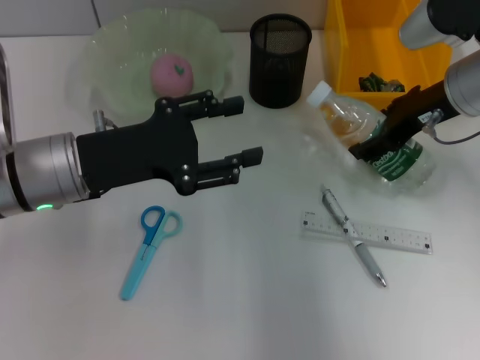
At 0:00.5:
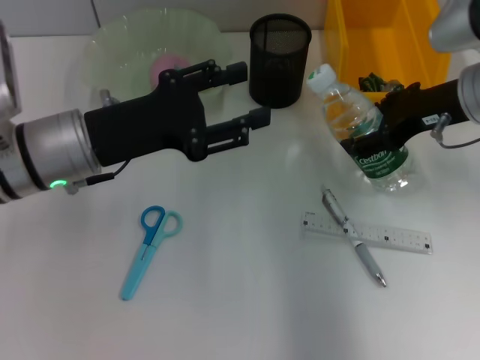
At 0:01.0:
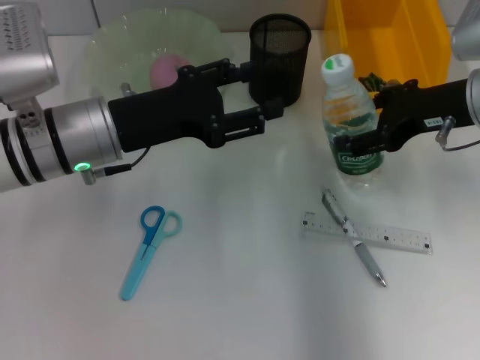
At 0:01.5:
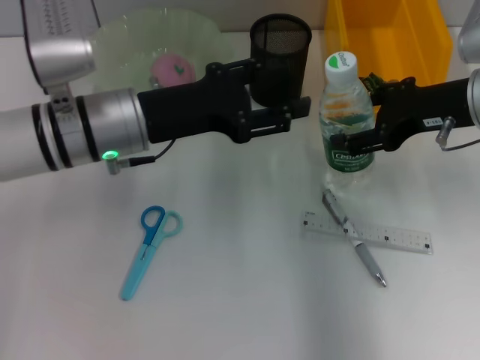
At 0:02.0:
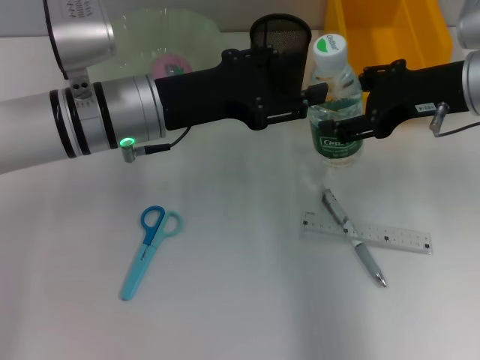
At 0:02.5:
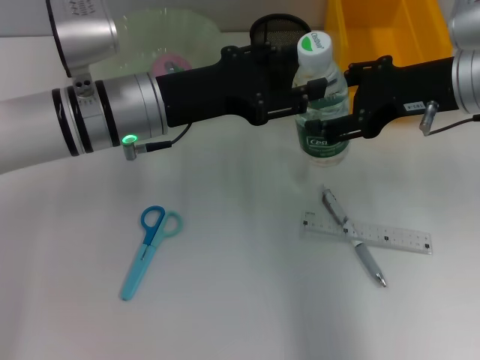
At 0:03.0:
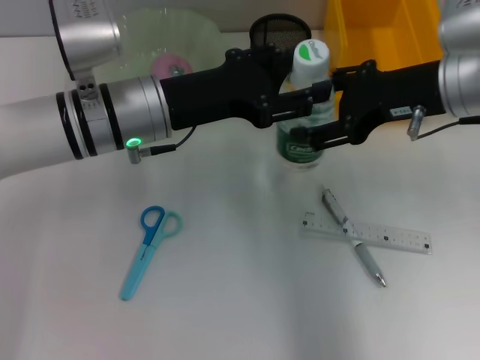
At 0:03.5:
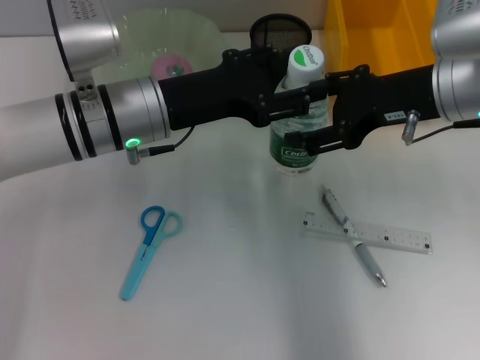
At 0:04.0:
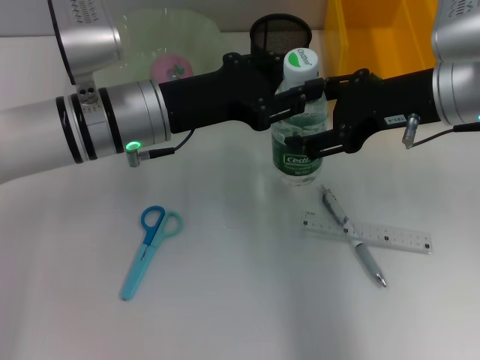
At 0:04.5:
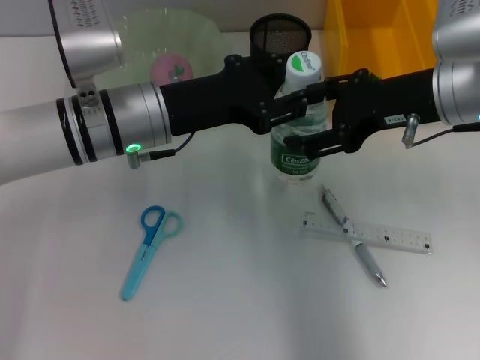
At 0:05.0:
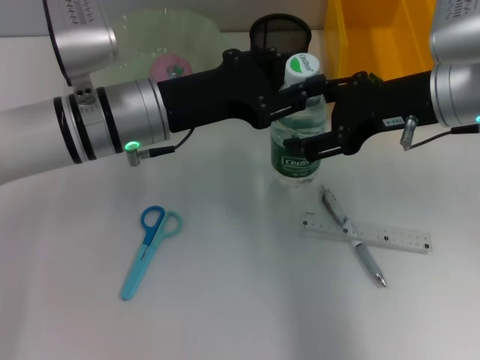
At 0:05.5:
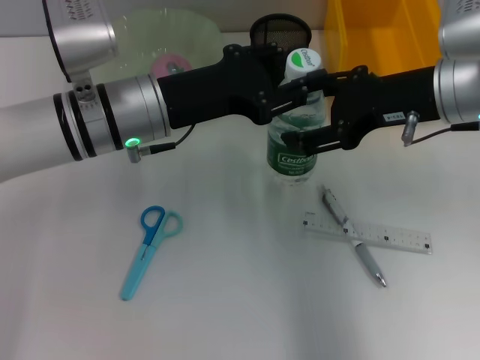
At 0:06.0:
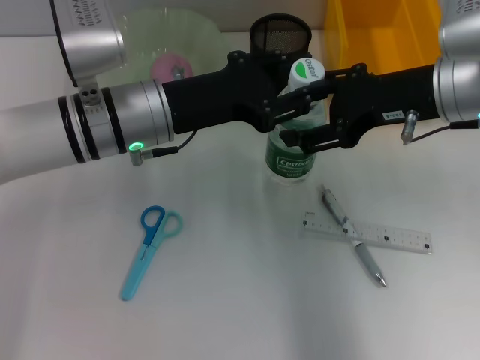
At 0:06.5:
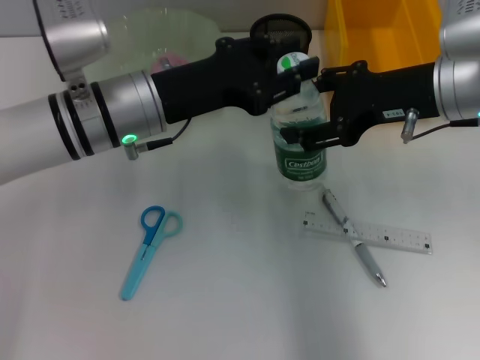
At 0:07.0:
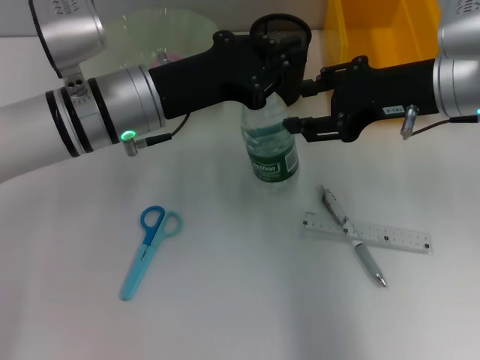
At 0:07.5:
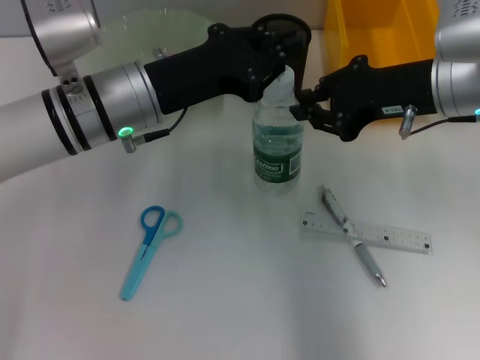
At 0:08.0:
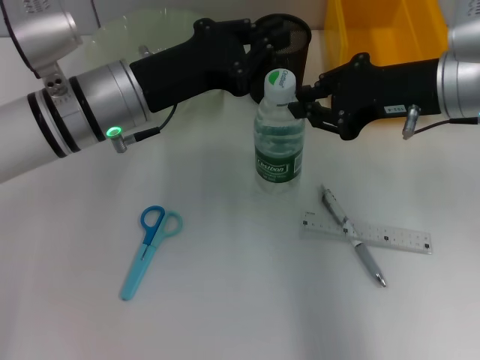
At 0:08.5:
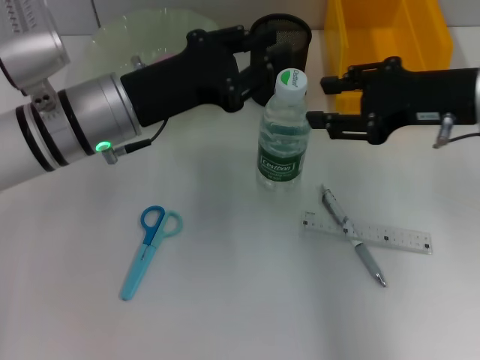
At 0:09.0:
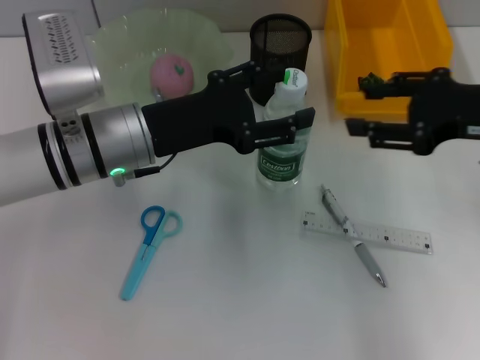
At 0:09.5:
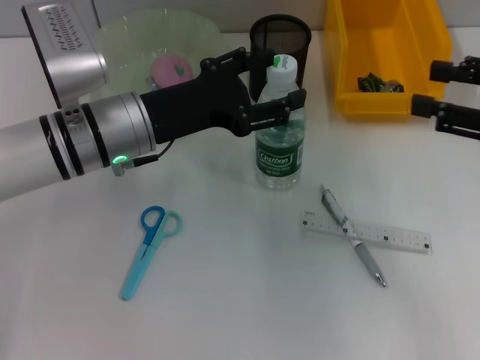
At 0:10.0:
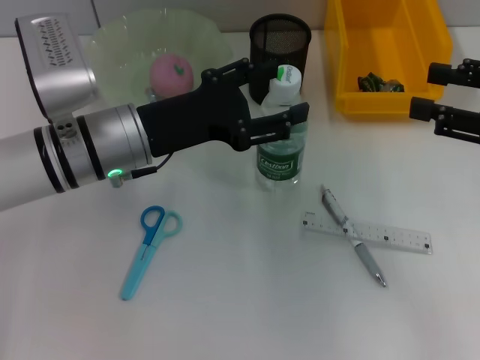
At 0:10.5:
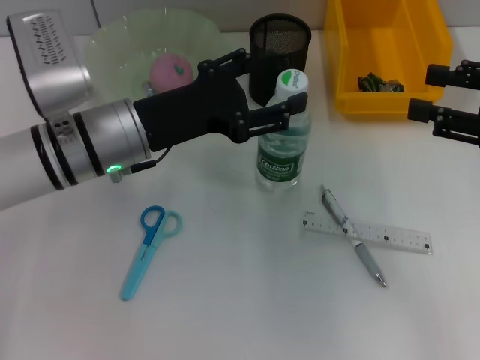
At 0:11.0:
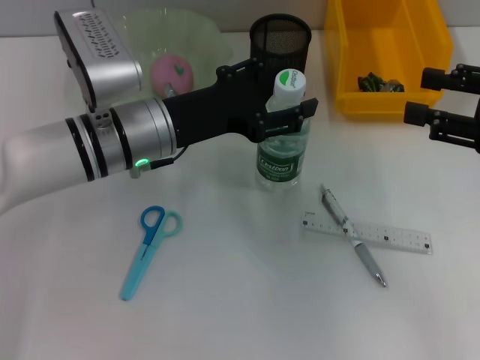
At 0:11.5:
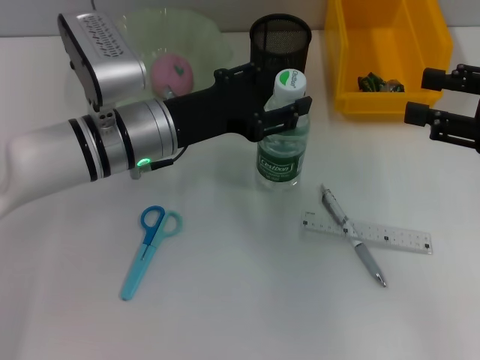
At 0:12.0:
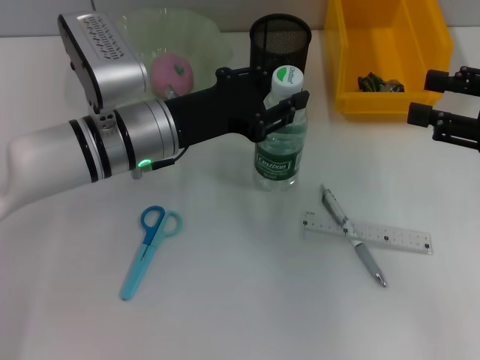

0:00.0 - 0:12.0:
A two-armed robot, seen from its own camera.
Step, 0:00.0 - 0:11.5: Grab the water bottle with the left hand.
0:00.0 - 0:02.0: The left gripper moves to the right and forward, roughly 10 cm.
0:02.0 - 0:04.0: The grippers stay close to where they were, moving slightly.
0:04.0 - 0:06.0: Both grippers stay put.
0:06.0 - 0:08.0: The left gripper closes its fingers; the right gripper closes its fingers.
0:08.0 - 0:10.0: The left gripper opens its fingers. The right gripper goes about 15 cm to the right and backward, and opens its fingers.
0:10.0 - 0:12.0: The left gripper closes up.

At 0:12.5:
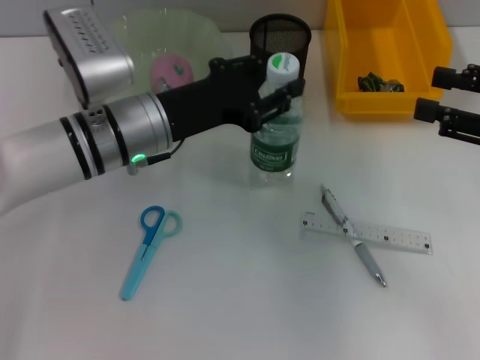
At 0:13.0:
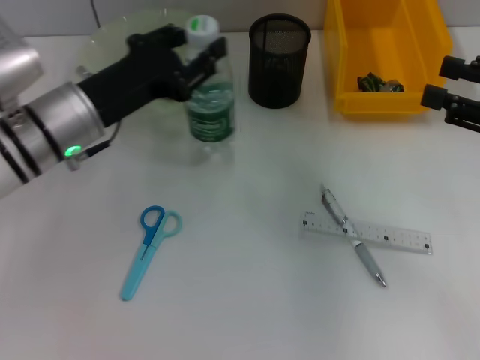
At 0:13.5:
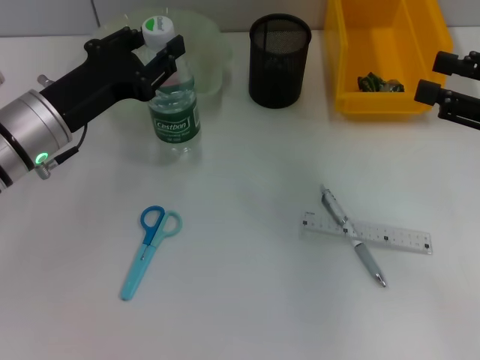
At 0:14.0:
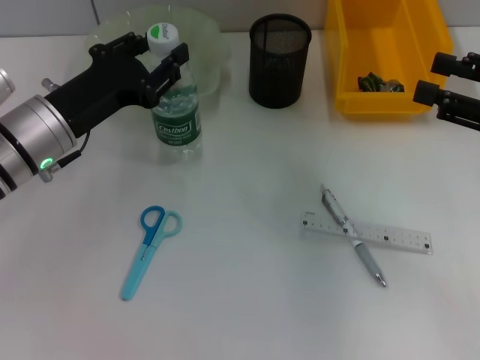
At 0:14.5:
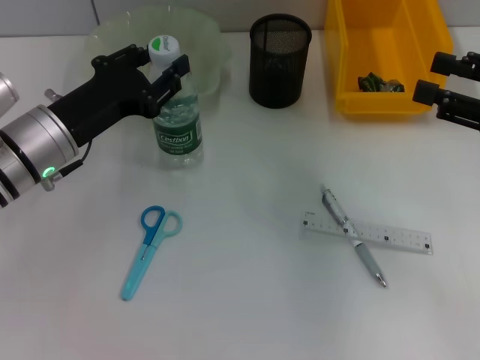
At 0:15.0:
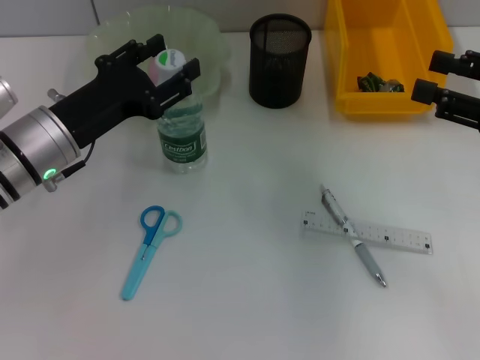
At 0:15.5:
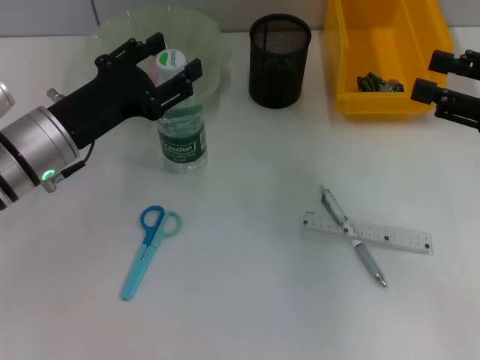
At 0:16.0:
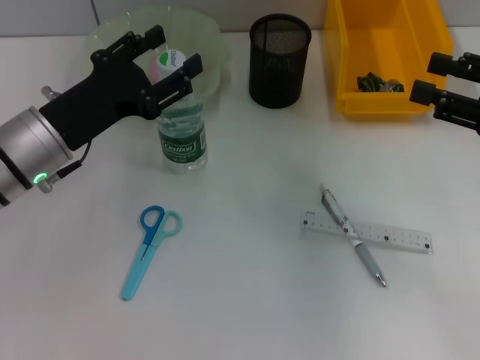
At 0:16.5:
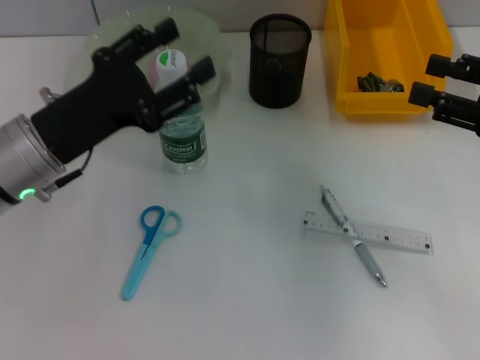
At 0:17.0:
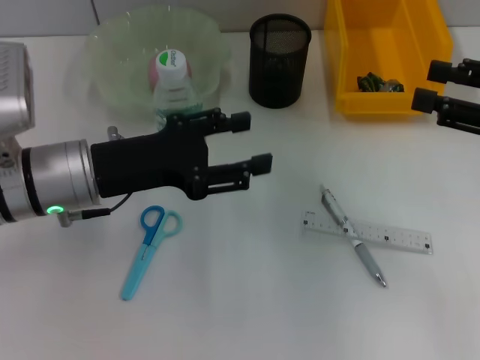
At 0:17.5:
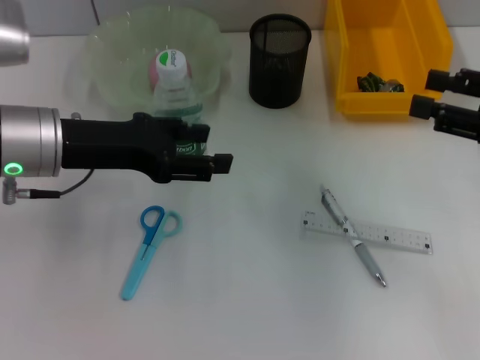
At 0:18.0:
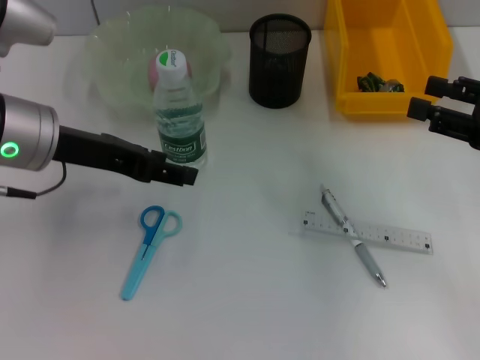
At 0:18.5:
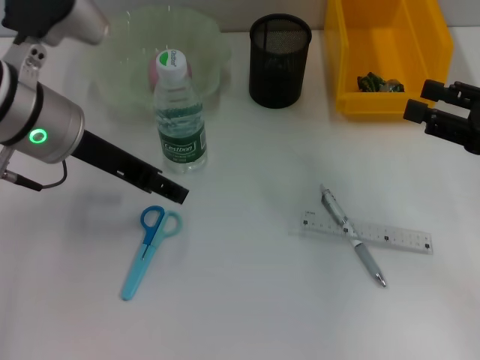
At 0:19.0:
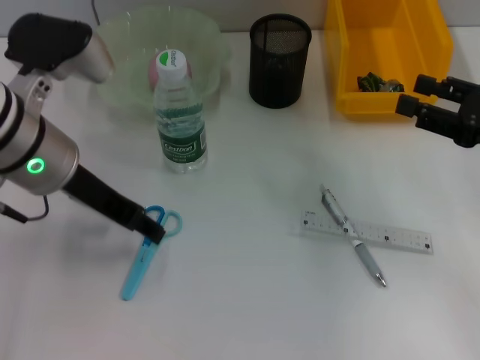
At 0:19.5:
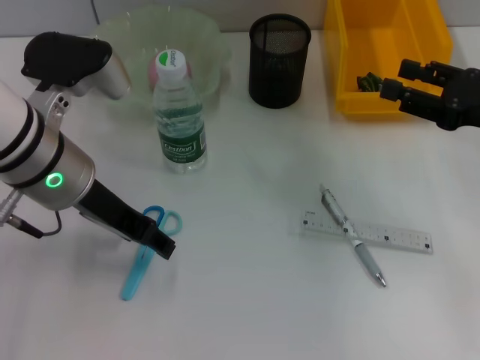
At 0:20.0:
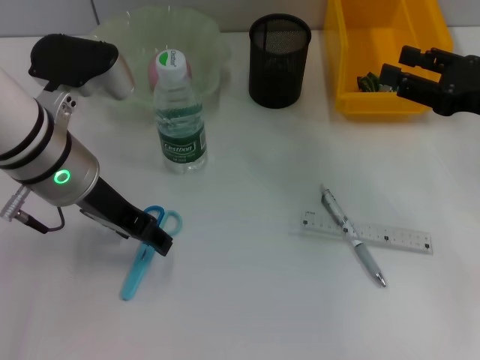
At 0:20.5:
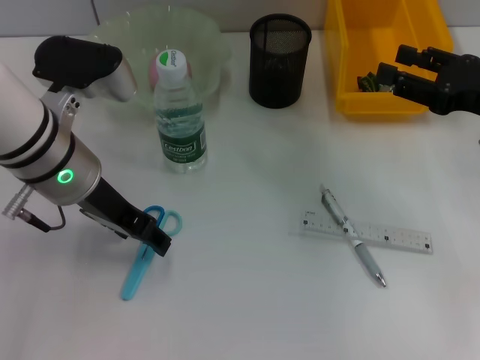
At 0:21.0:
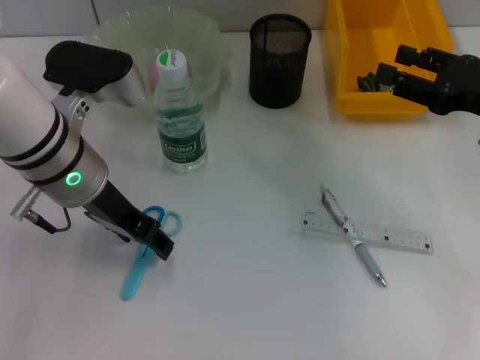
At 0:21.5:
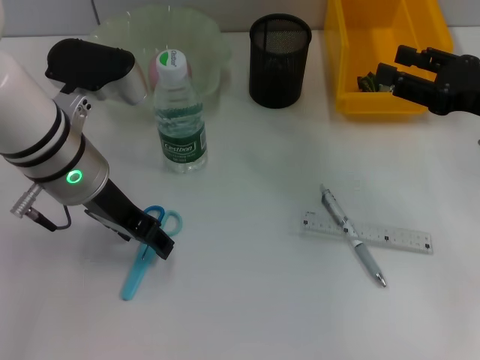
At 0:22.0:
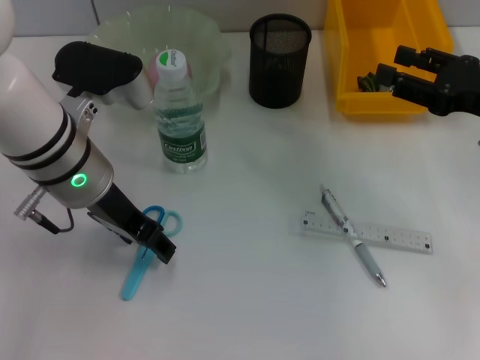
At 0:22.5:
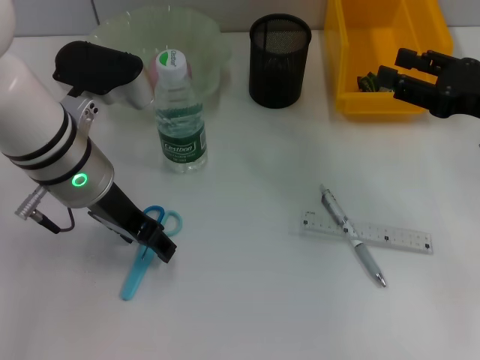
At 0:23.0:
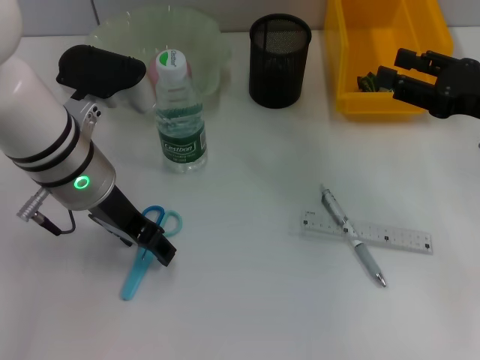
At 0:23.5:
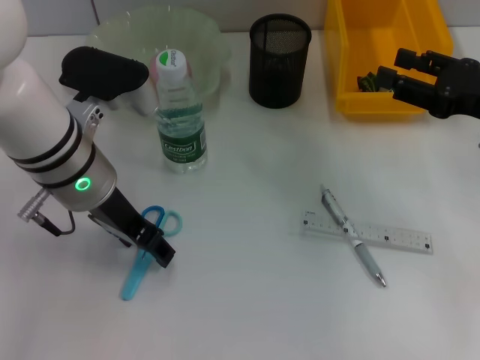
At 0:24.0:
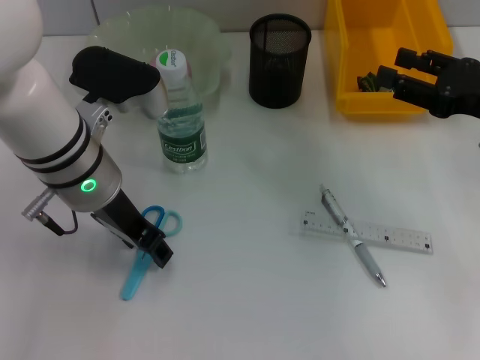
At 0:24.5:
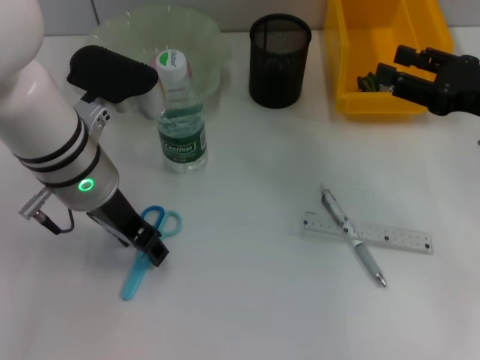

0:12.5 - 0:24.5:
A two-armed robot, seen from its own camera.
Step, 0:12.5 - 0:15.5: Place the water bottle on the table with the left hand.
0:12.5 - 0:14.5: The left gripper heads to the left, covering approximately 10 cm.
0:14.5 - 0:16.5: The left gripper opens up.
0:16.5 - 0:18.5: The left gripper goes approximately 5 cm upward.
0:18.5 - 0:20.5: There are only small adjustments of the grippers.
0:20.5 - 0:22.5: Neither gripper changes place.
0:22.5 - 0:24.5: There are only small adjustments of the grippers.

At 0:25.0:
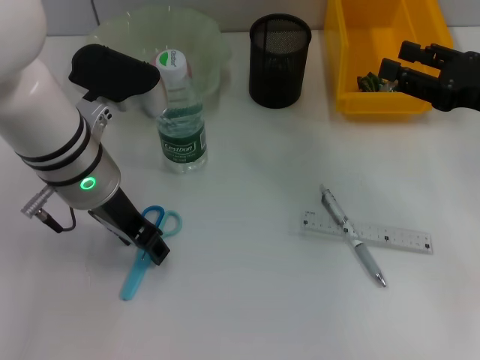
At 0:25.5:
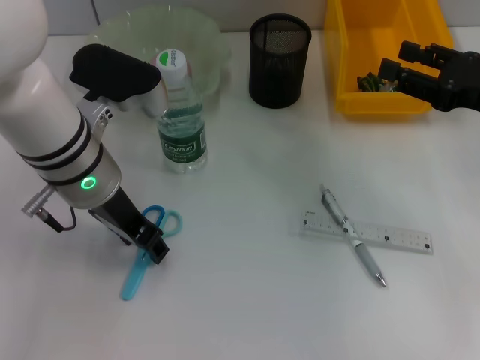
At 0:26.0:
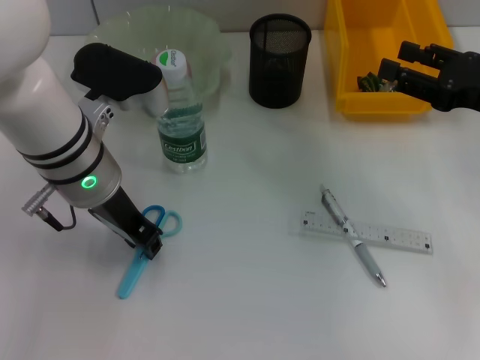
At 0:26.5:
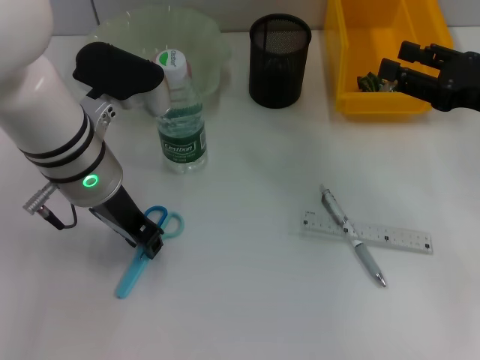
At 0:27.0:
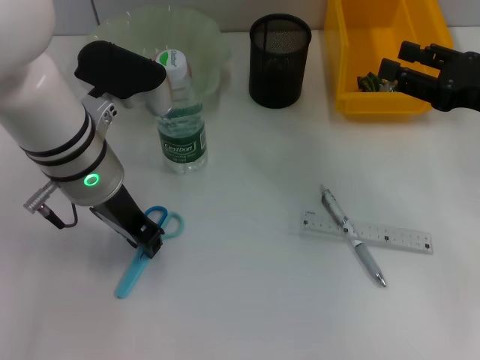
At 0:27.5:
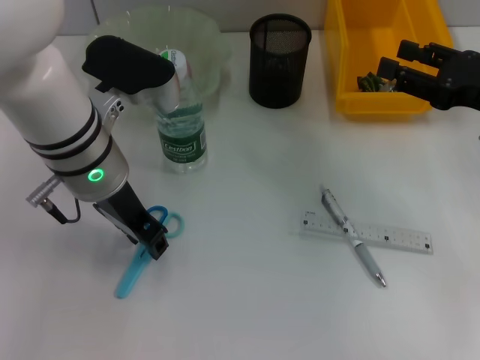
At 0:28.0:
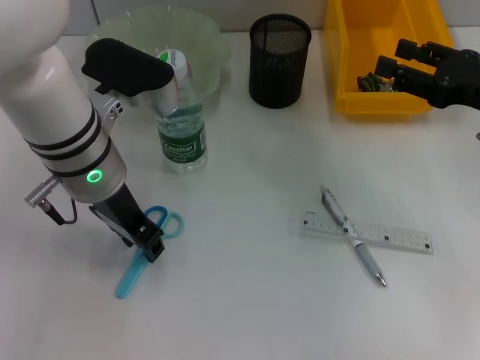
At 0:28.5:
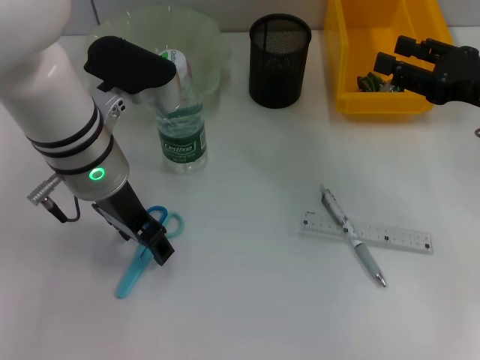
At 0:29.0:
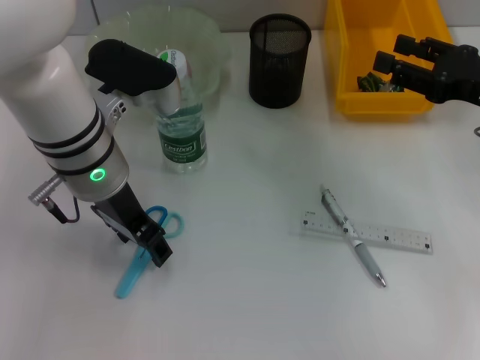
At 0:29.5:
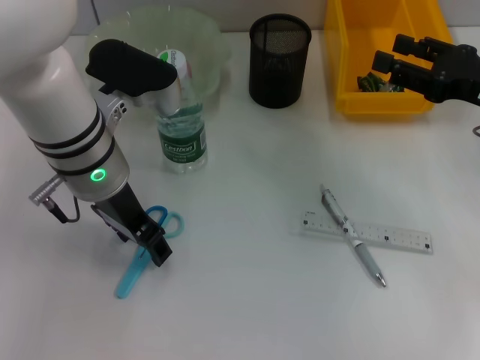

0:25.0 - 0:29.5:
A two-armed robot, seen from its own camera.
0:25.0 - 0:27.0: The left gripper closes its fingers.
0:27.0 - 0:29.5: The left gripper opens.
